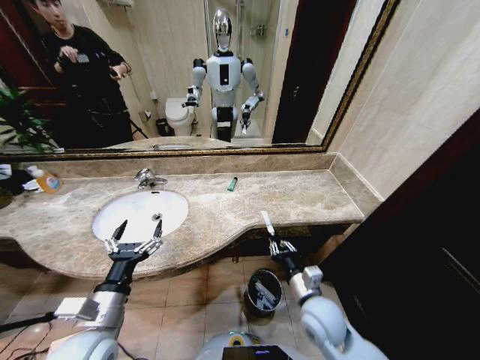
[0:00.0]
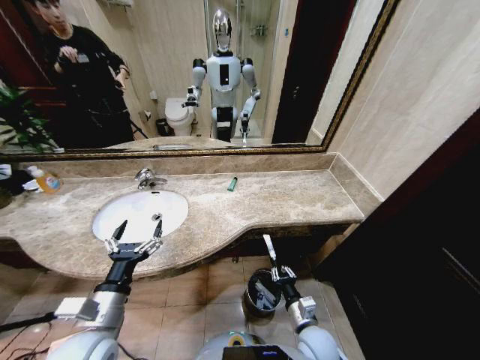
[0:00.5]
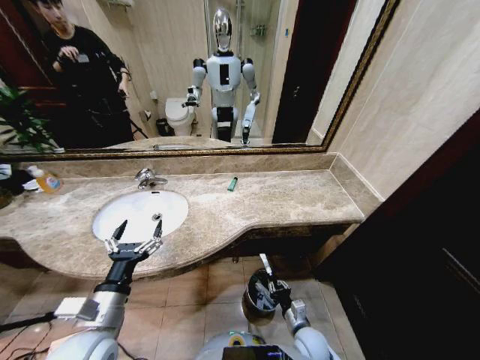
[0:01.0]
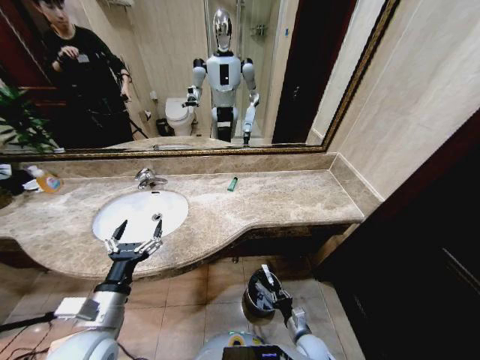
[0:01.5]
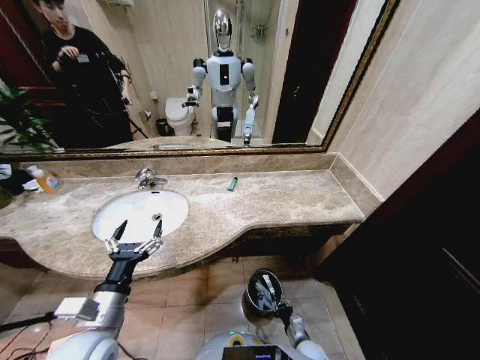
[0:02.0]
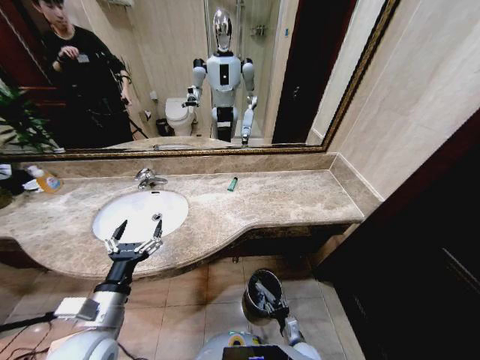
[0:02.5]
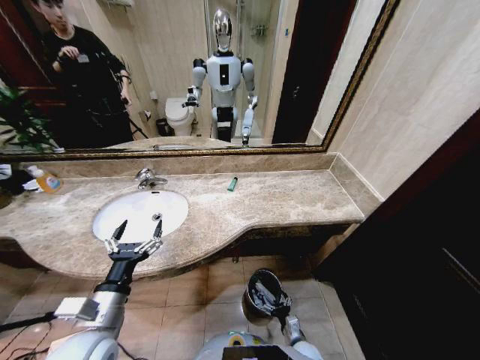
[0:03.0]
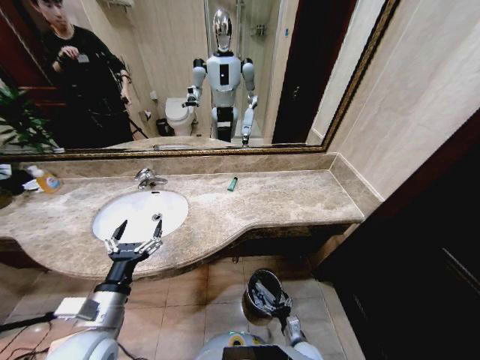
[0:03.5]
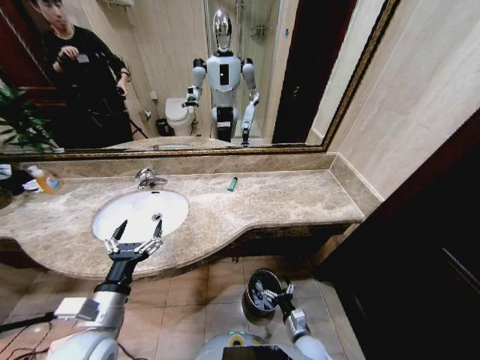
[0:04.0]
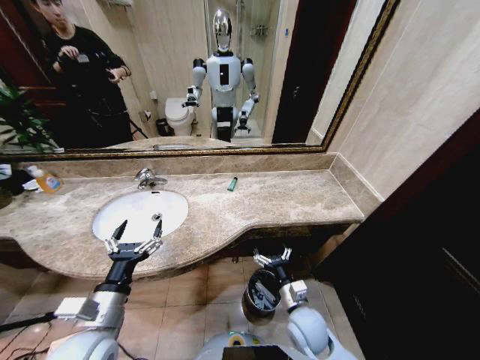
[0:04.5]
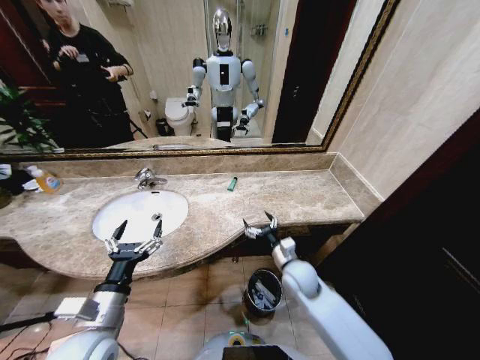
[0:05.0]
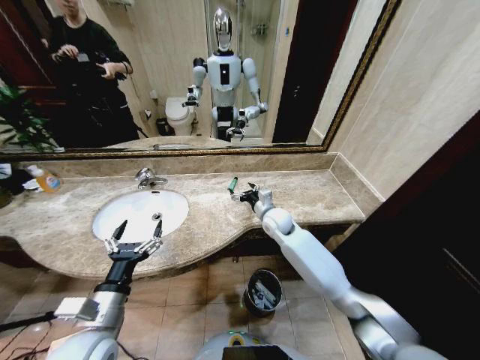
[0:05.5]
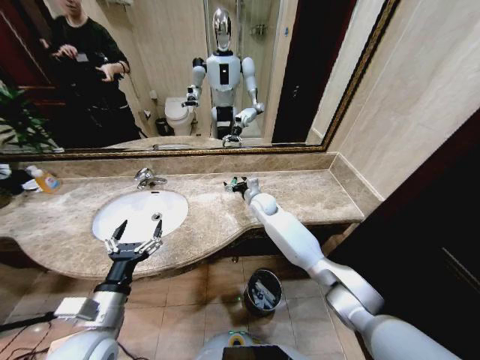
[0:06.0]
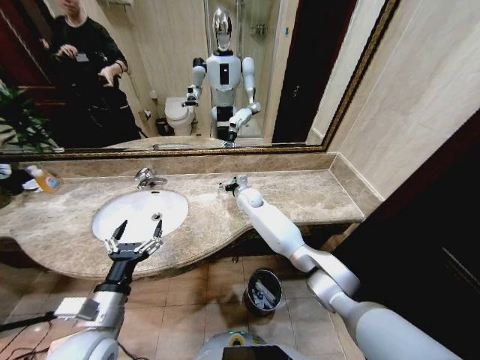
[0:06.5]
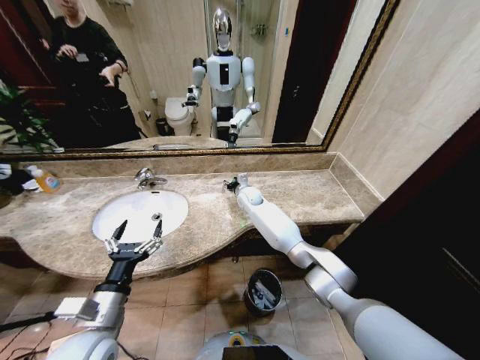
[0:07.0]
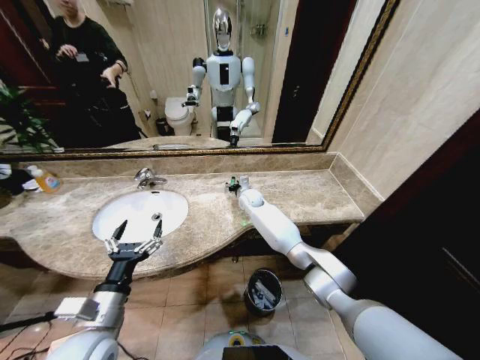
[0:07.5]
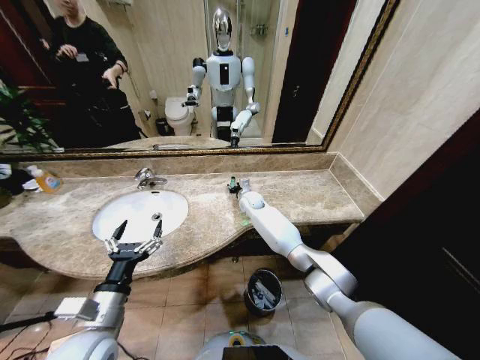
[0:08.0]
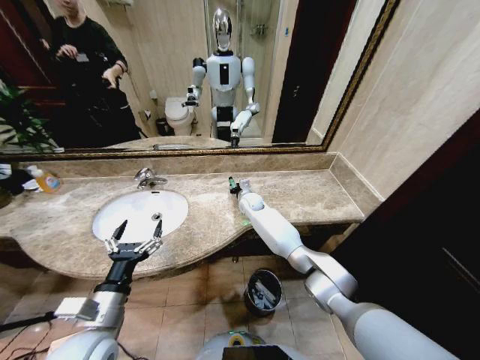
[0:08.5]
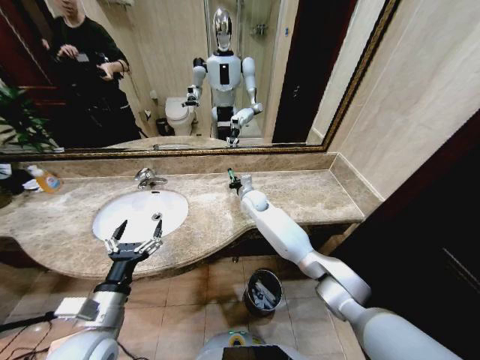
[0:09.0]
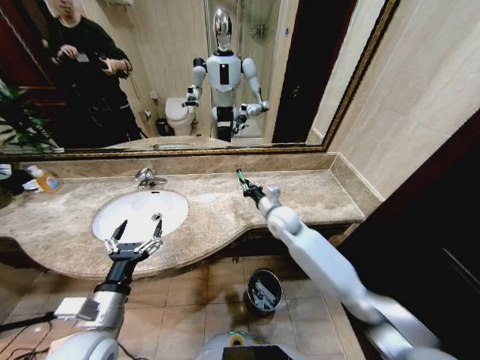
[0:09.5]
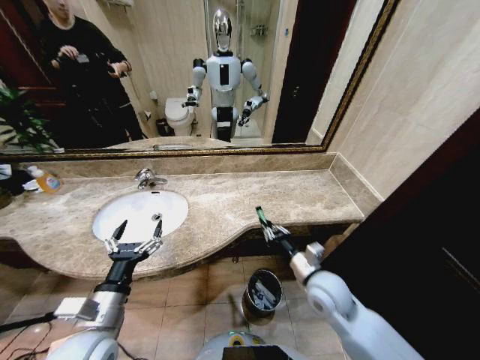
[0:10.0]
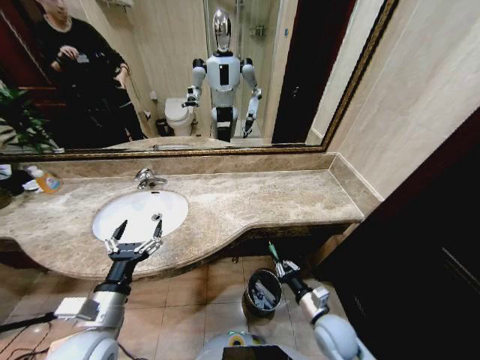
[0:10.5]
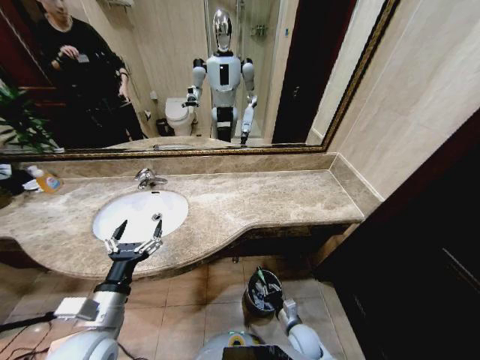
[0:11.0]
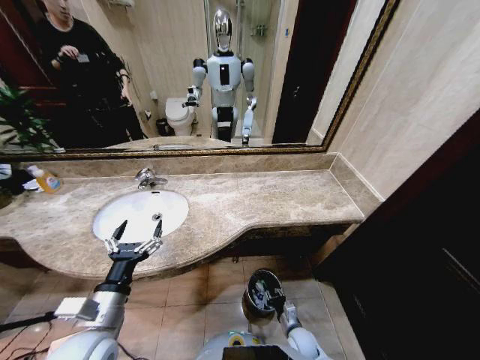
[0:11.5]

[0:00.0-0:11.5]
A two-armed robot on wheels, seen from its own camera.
Task of the whole recording: Pick up the trash from the sink and place it in the trash bin.
0:00.0 to 0:02.0: The right gripper moves downward, about 25 cm.
0:02.0 to 0:04.0: The right gripper shifts approximately 5 cm upward, and opens its fingers.
0:04.0 to 0:06.0: The right gripper goes some 50 cm forward and upward.
0:06.0 to 0:07.5: The right gripper heads forward, covering some 5 cm, and closes.
0:07.5 to 0:09.5: The right gripper is displaced backward and to the right by approximately 15 cm, and closes its fingers.
0:09.5 to 0:11.5: The right gripper moves downward and backward, some 40 cm.

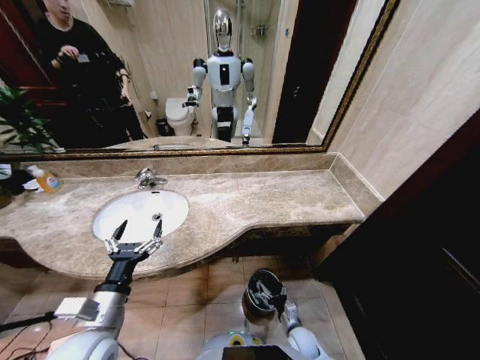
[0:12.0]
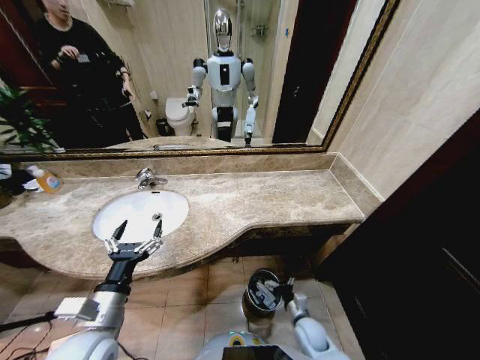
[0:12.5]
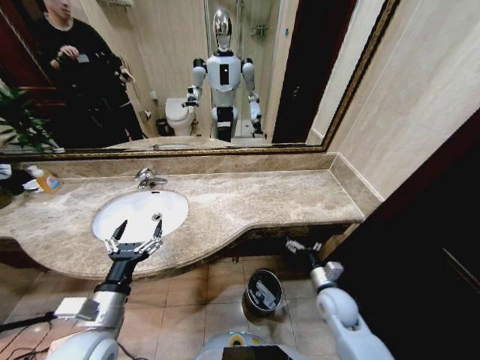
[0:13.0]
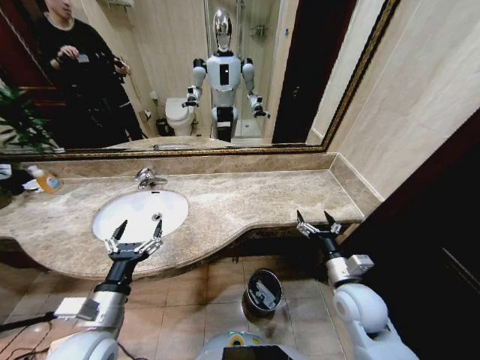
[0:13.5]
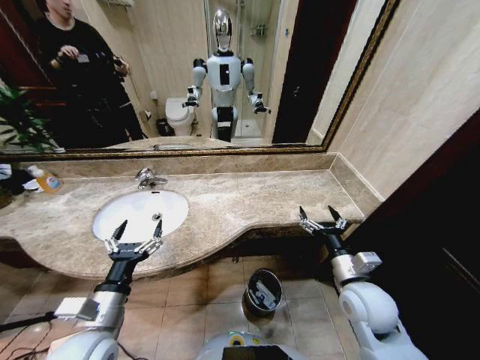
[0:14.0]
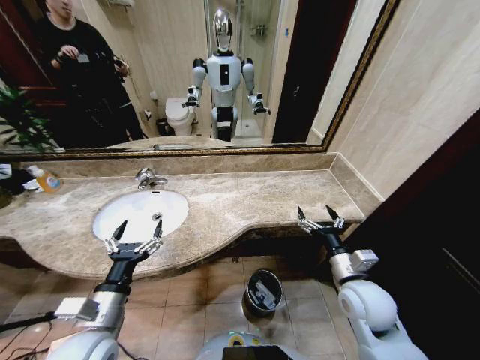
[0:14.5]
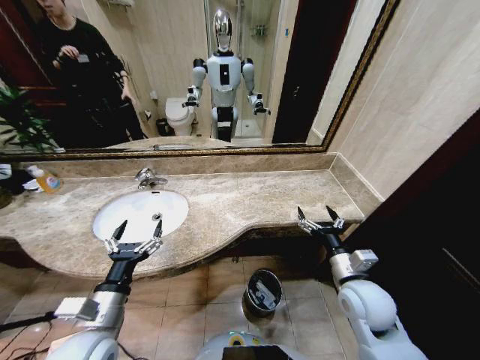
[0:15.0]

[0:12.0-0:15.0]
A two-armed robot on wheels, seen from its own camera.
Task of the whole recording: Pick up the trash from the sink and place it in the trash bin.
0:12.0 to 0:13.5: The right gripper travels upward by roughly 30 cm.
0:13.5 to 0:15.0: There are only small adjustments of the grippers.
